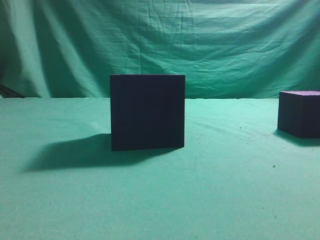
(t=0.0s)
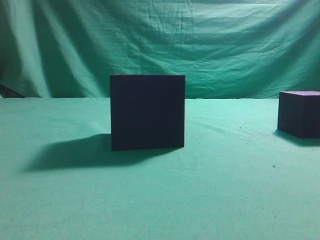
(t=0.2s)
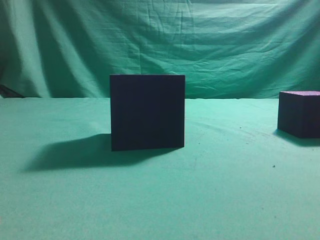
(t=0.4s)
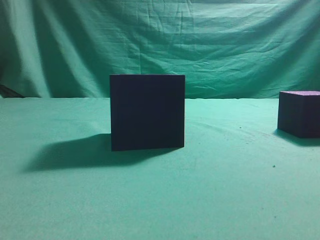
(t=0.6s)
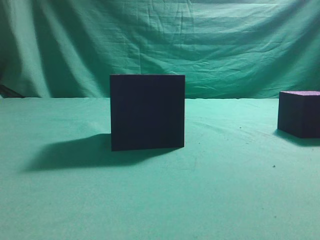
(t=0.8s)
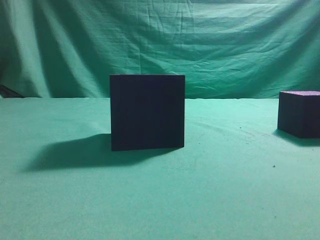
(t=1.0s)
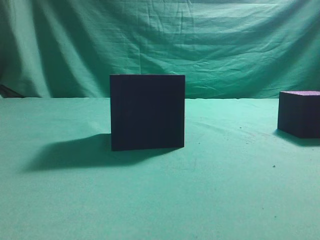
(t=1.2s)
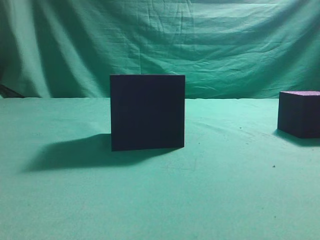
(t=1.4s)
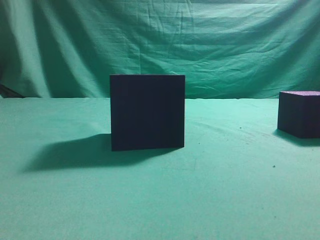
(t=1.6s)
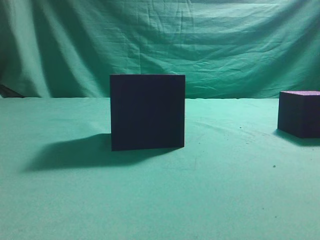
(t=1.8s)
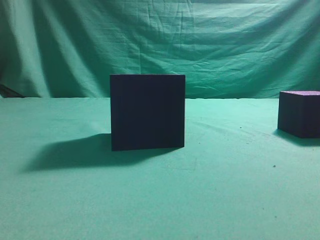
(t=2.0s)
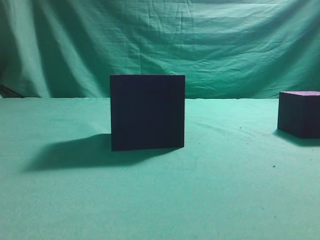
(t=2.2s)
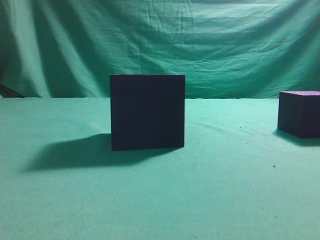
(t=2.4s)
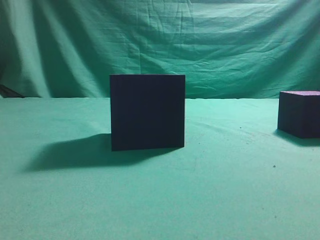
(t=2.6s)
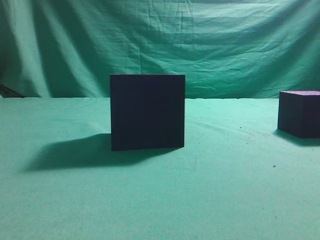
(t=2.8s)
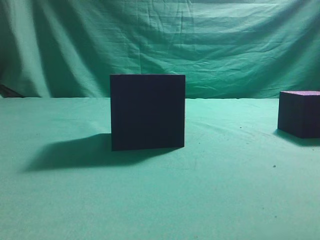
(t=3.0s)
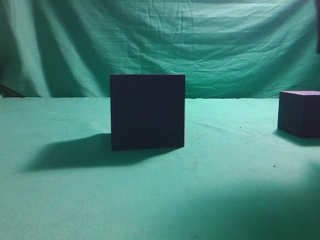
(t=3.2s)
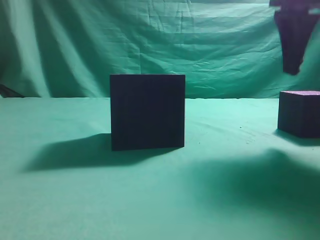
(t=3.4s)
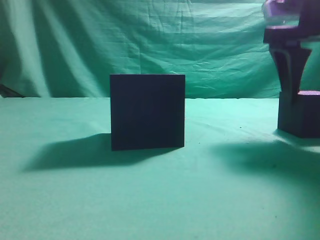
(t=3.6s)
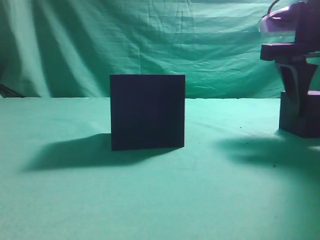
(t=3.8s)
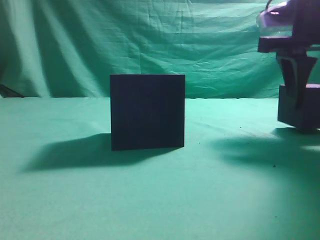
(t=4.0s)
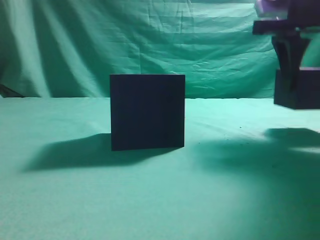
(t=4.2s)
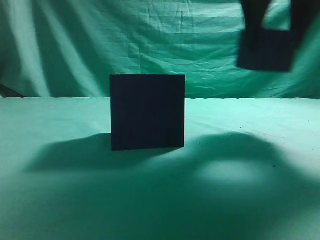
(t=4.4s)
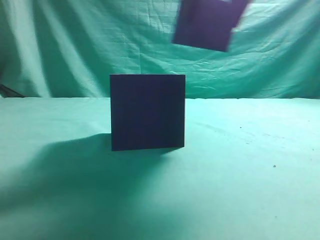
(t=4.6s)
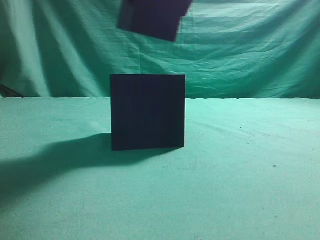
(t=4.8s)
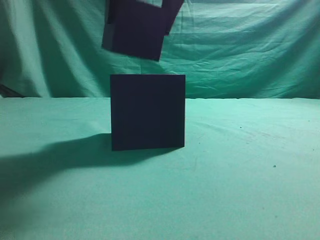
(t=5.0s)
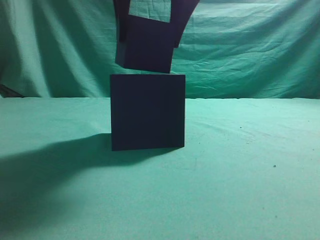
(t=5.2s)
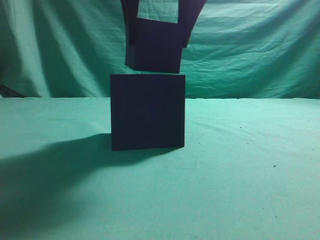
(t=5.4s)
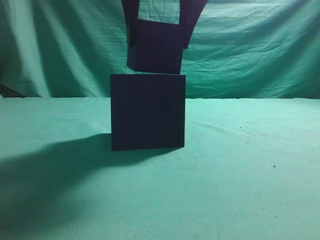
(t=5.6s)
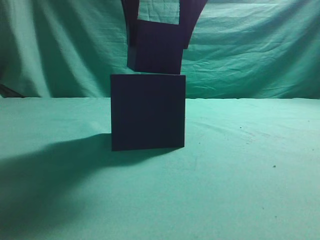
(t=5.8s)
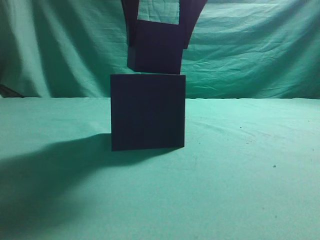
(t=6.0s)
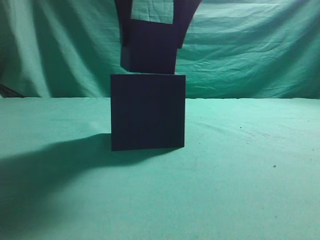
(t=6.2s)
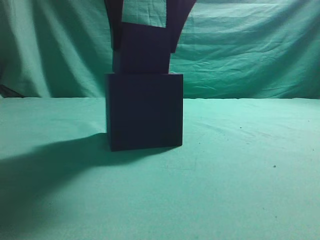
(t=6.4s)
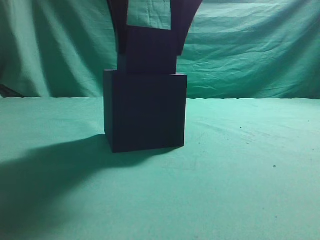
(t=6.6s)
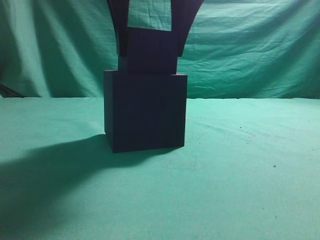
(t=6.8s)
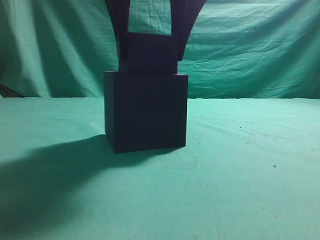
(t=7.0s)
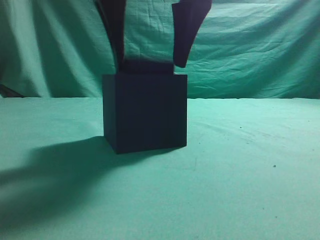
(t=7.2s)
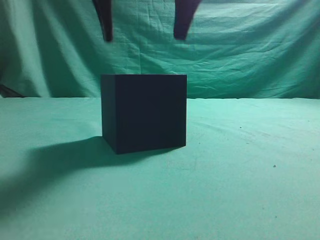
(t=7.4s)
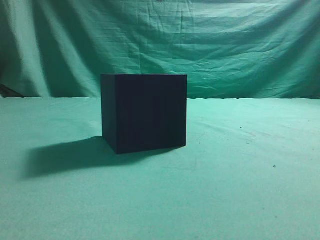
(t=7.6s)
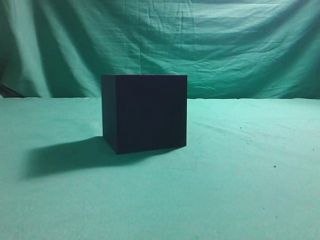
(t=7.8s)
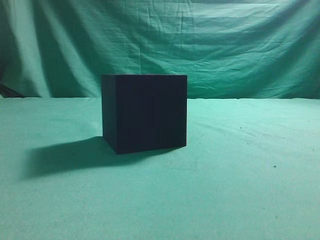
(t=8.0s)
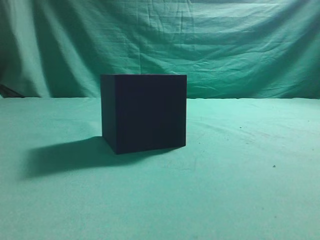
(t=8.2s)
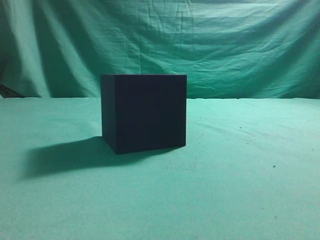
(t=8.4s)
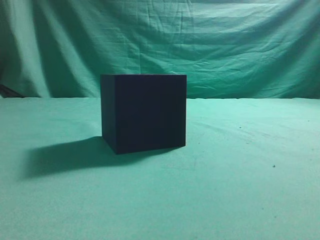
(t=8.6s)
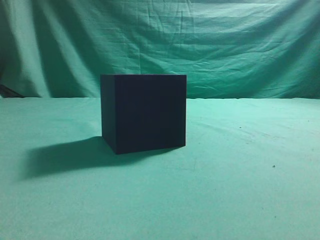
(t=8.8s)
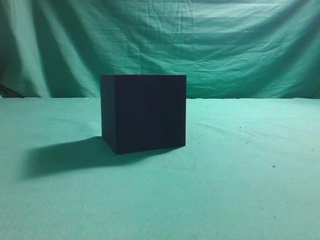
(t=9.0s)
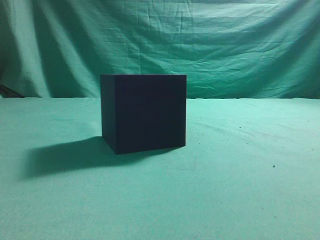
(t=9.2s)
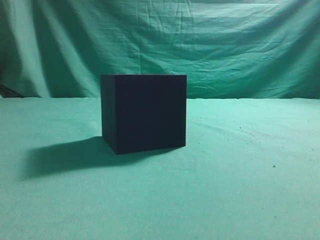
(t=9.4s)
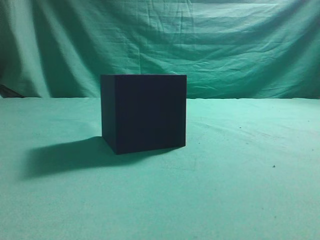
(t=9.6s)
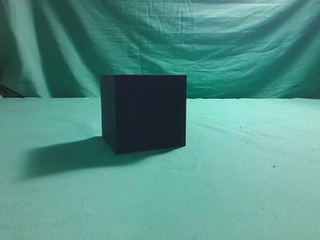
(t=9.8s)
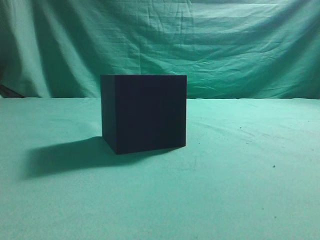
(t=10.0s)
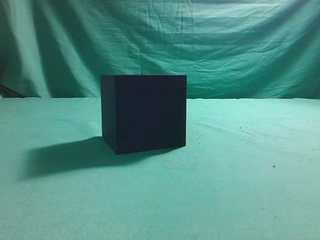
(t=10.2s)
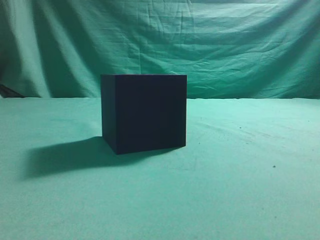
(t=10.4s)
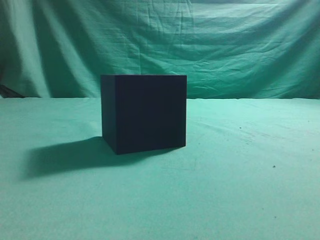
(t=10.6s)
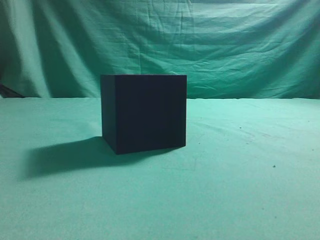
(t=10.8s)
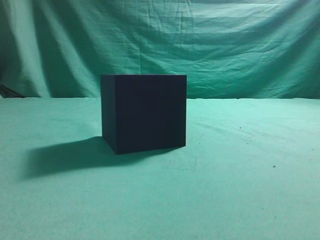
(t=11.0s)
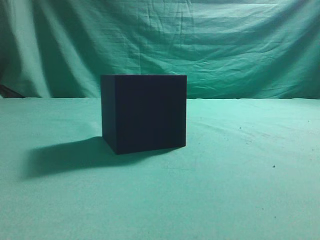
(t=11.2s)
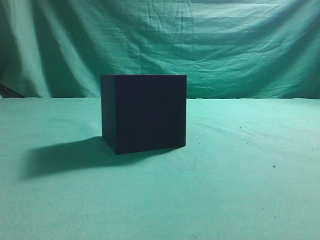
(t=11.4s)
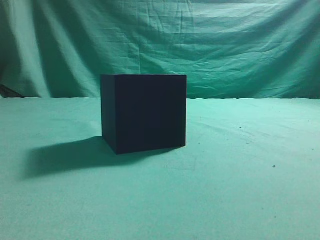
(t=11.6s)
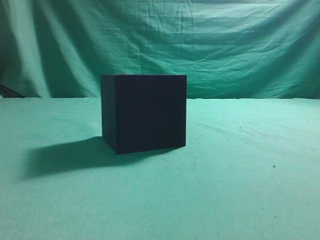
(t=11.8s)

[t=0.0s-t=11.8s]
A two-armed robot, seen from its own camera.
Task of the whole recording: pick up the cube block and place it into the cube groove.
Step, t=0.0s to t=4.0s: Grasp the cube.
Step, t=4.4s to t=7.2s: Place cube into the cube-shaped recess.
t=3.0s to t=4.4s: The right gripper heads forward and to the left, covering approximately 10 cm, and opens its fingers.
t=4.4s to t=6.0s: The right gripper travels to the left by roughly 15 cm.
t=6.0s to t=7.4s: The grippers stay close to where they were, moving slightly.
t=7.4s to t=8.8s: The right gripper is displaced to the right, backward and upward by about 30 cm, and closes up.
